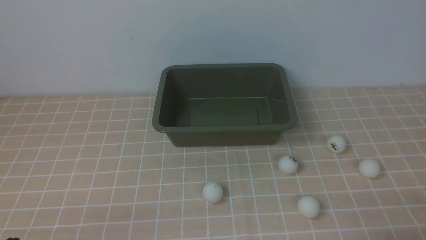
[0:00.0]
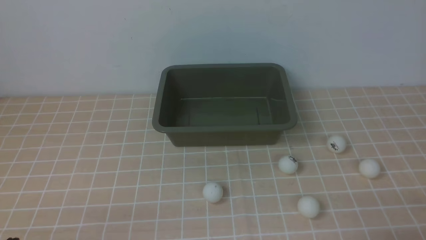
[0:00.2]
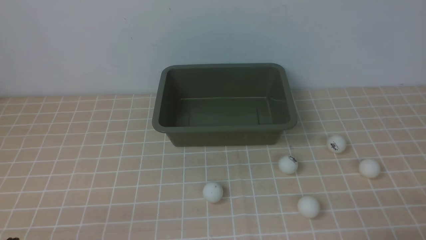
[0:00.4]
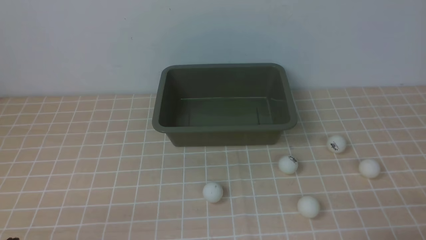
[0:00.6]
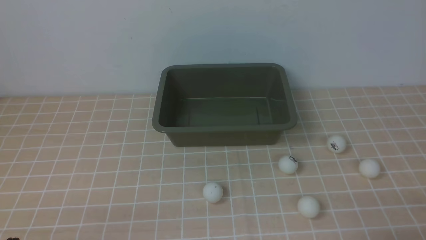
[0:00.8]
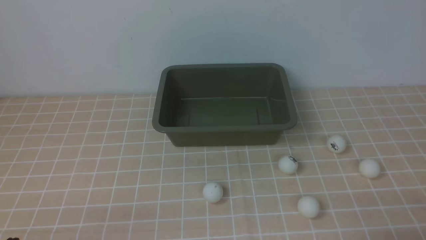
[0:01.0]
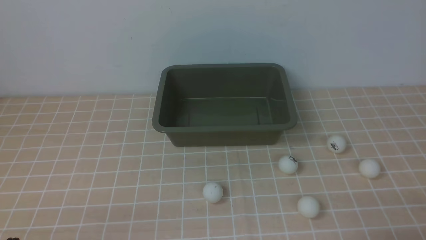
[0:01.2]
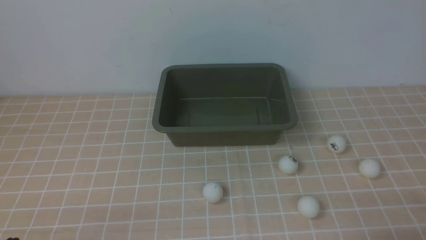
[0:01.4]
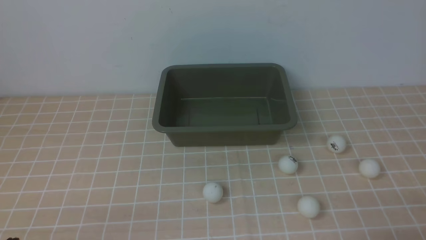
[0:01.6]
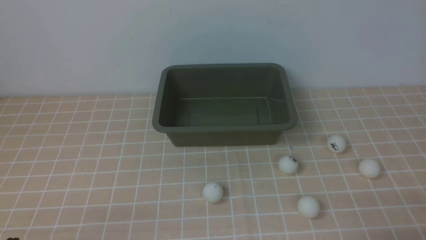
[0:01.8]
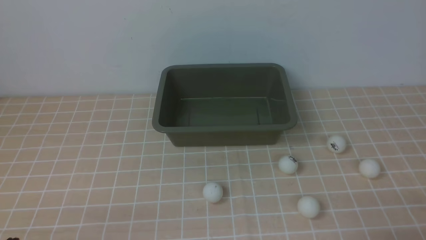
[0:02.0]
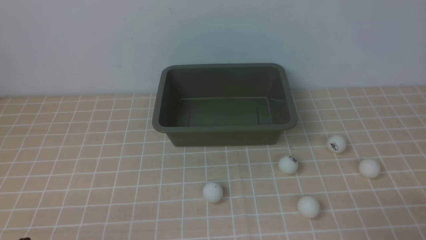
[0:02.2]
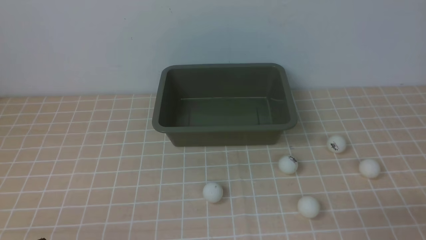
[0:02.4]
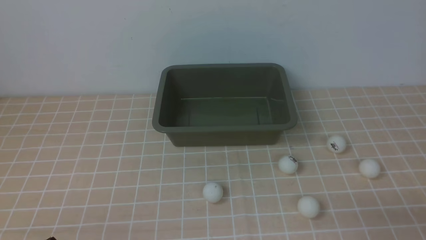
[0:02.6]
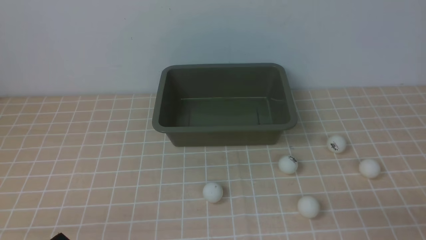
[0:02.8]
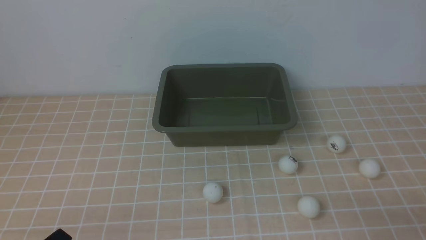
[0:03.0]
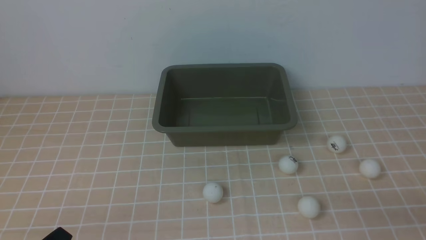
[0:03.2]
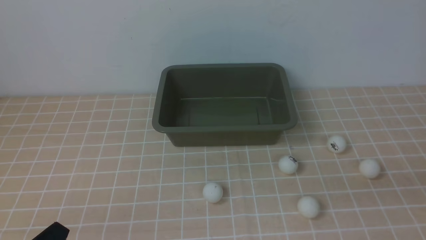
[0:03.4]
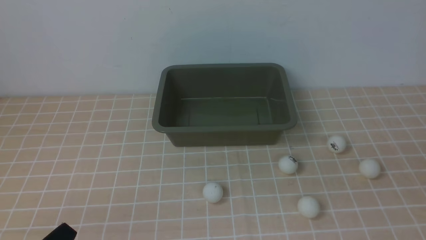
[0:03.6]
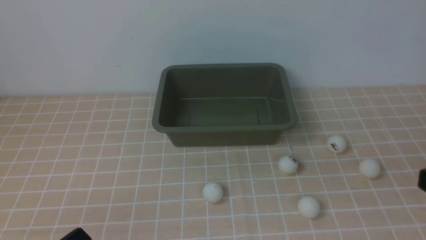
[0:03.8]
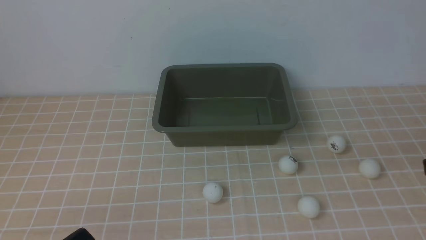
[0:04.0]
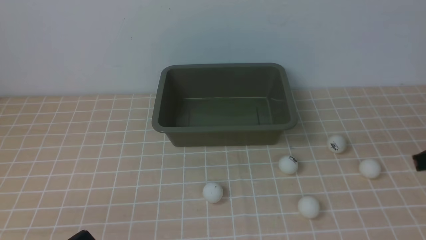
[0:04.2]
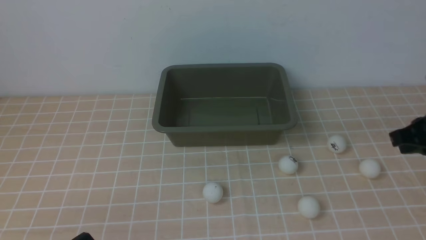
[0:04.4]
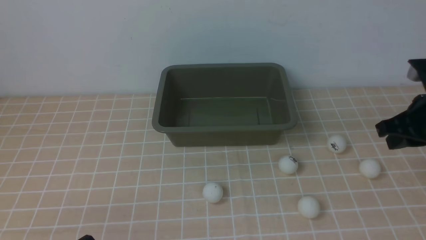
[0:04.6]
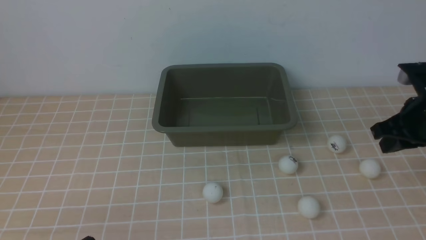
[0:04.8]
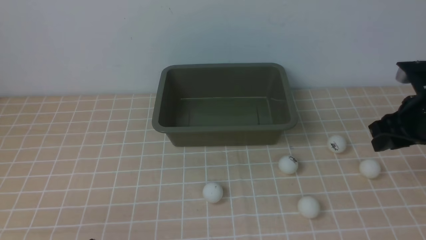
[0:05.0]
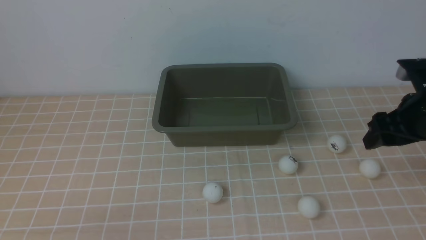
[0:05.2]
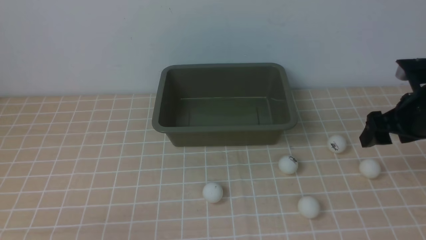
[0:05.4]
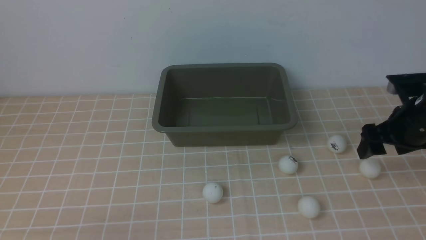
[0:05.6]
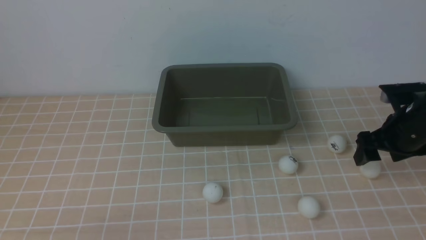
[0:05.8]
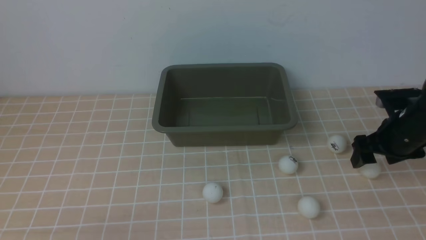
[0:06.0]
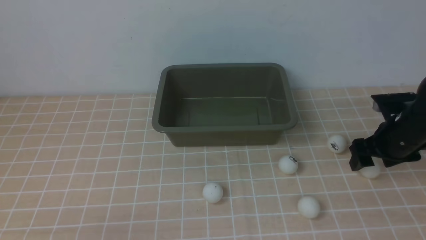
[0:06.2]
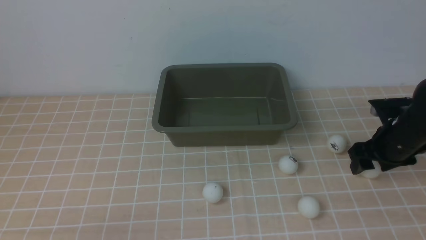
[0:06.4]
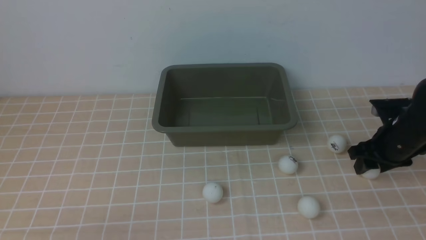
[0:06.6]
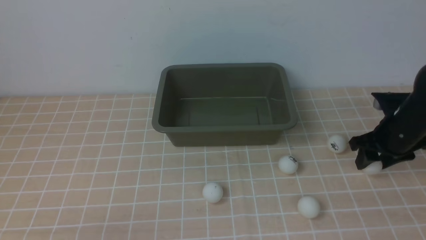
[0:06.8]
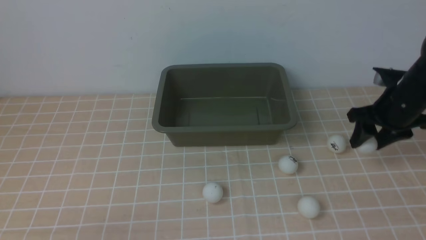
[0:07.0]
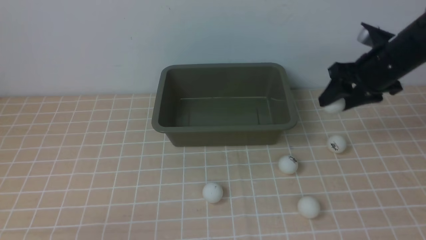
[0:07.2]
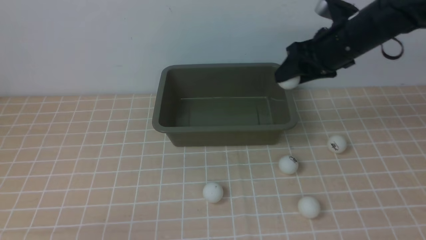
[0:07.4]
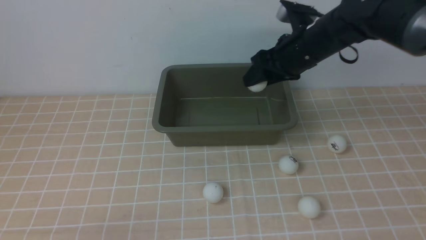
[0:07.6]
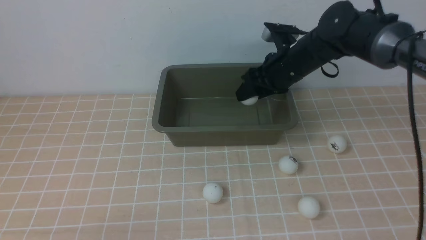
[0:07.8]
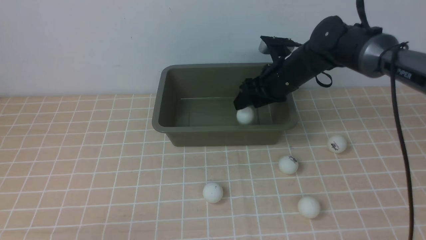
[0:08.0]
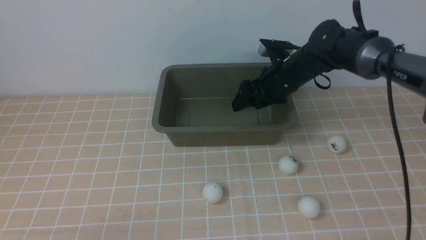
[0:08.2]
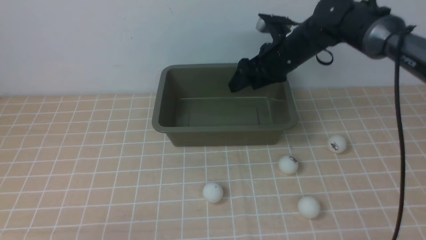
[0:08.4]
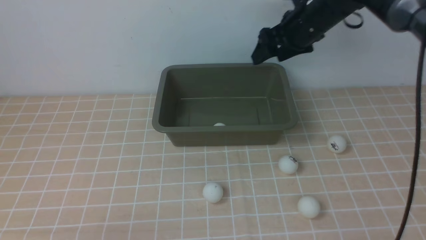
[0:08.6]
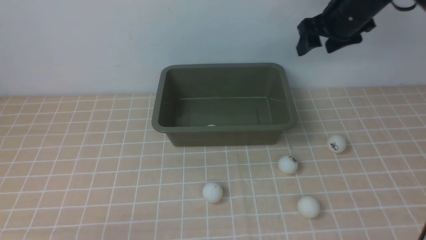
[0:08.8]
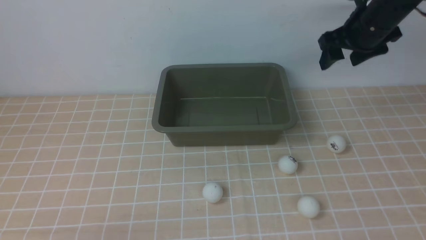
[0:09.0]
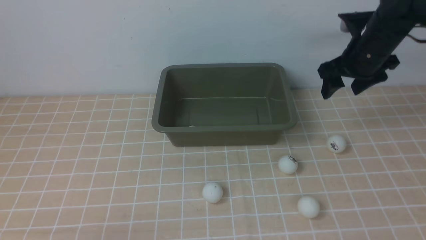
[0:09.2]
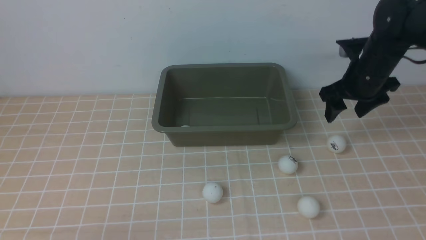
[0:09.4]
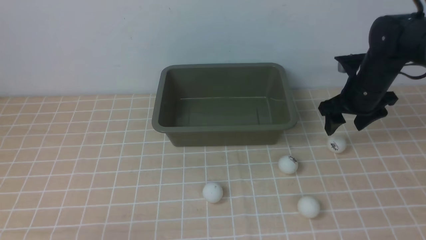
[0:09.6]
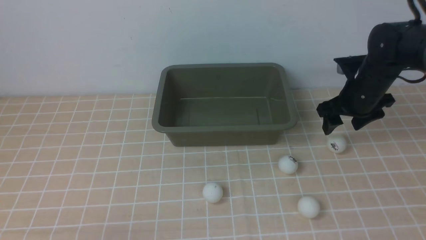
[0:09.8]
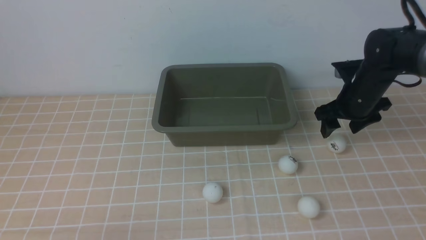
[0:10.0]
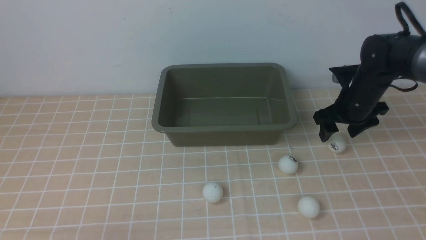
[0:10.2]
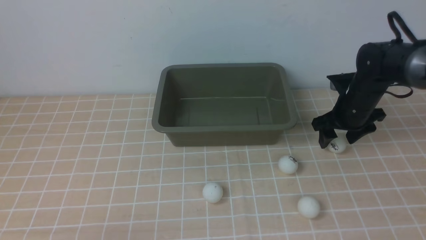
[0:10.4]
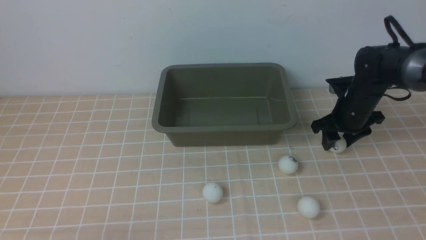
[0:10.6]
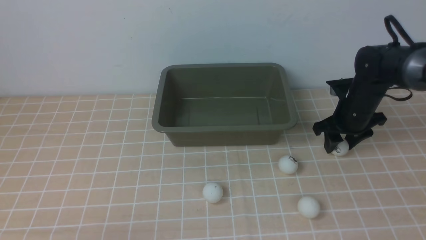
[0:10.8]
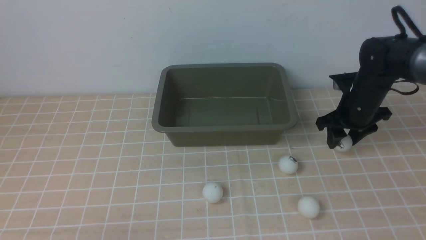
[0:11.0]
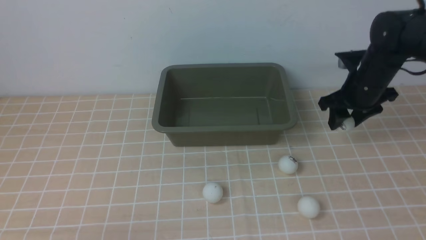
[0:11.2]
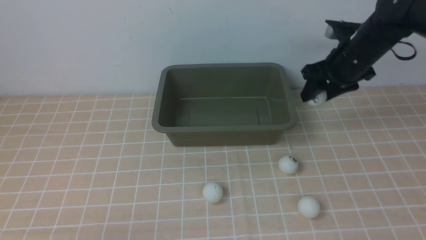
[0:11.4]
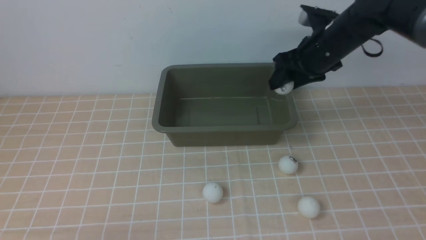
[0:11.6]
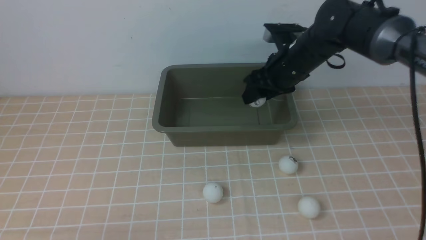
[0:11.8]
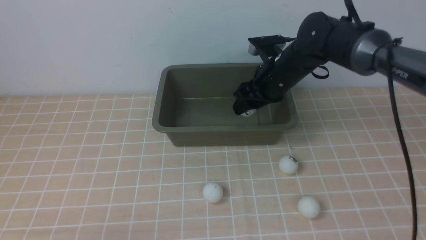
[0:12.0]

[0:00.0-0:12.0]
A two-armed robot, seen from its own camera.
Step, 0:00.0 to 0:06.6: use the right arm to clamp the table tennis ball closest to it.
Step, 0:07.0 to 0:08.2: use the right arm to put the table tennis ball into the box.
Step, 0:08.4 to 0:11.0: use the right arm to clamp the table tennis ball closest to it.
0:00.0 to 0:01.6: The two grippers keep their place.
0:03.0 to 0:04.4: The right gripper shifts approximately 20 cm forward.
0:04.4 to 0:06.0: The right gripper goes roughly 15 cm downward and forward, and opens.
0:06.0 to 0:07.6: The right gripper travels to the left, upward and forward by roughly 20 cm, and closes up.
0:07.6 to 0:09.0: The right gripper is displaced to the right by about 10 cm.
0:09.0 to 0:10.4: The right gripper is displaced downward by approximately 15 cm.
0:10.4 to 0:12.0: The right gripper moves to the left and upward, approximately 15 cm.

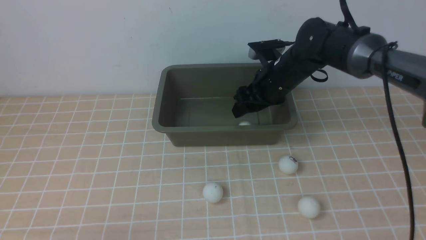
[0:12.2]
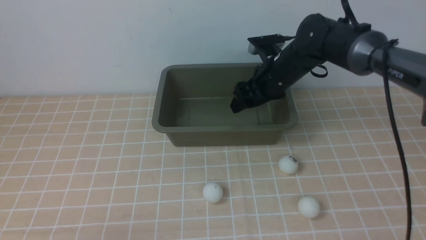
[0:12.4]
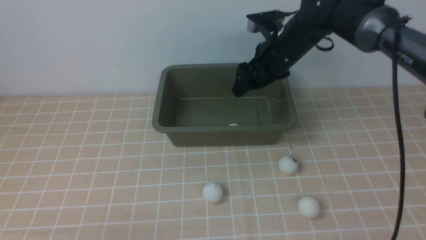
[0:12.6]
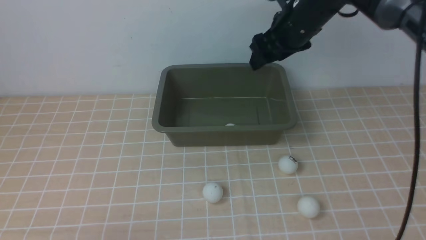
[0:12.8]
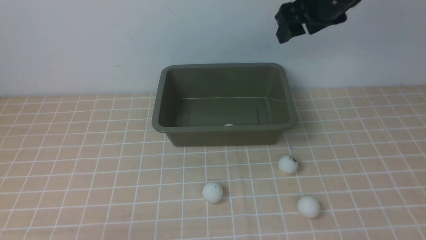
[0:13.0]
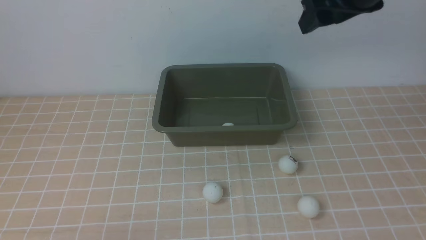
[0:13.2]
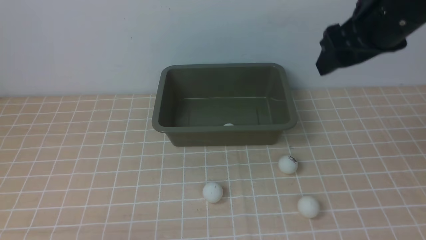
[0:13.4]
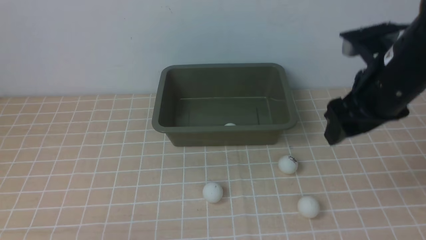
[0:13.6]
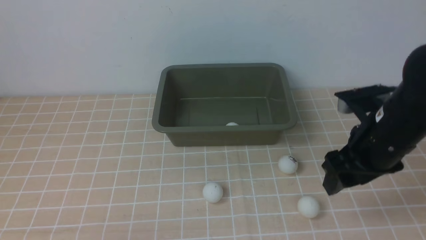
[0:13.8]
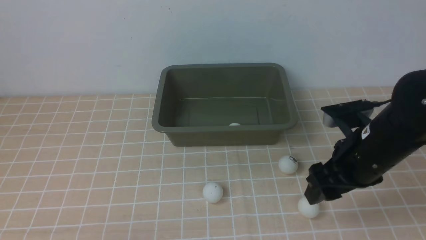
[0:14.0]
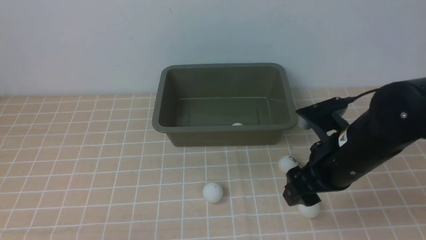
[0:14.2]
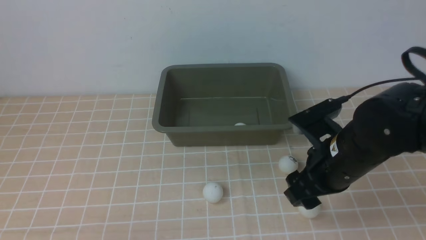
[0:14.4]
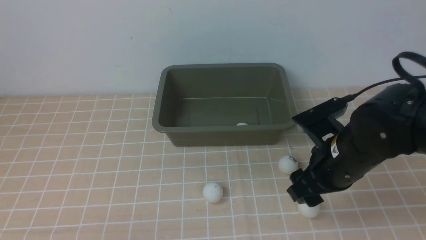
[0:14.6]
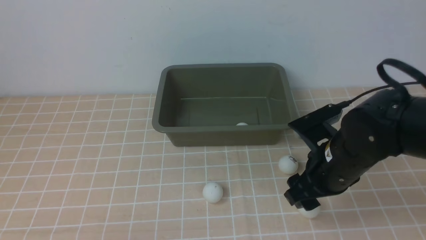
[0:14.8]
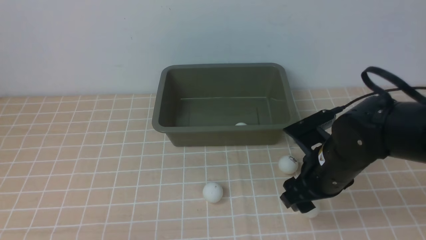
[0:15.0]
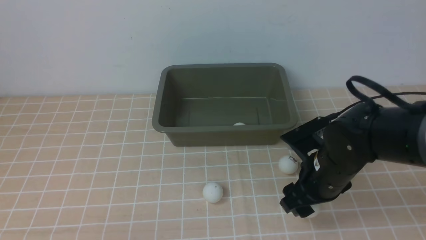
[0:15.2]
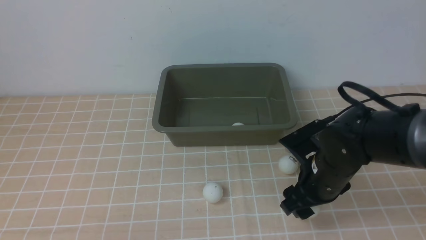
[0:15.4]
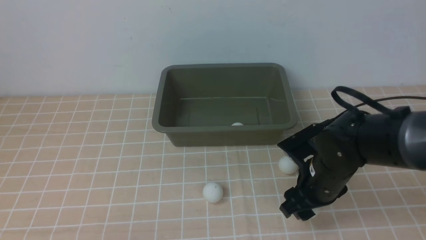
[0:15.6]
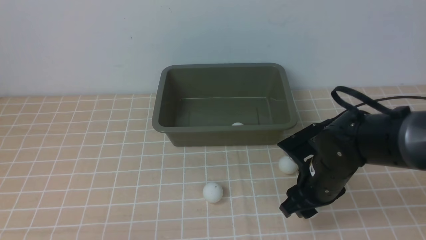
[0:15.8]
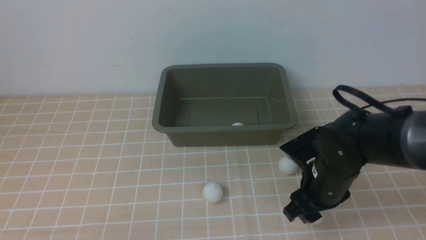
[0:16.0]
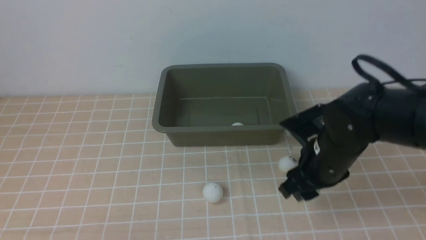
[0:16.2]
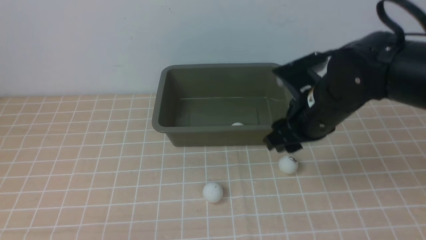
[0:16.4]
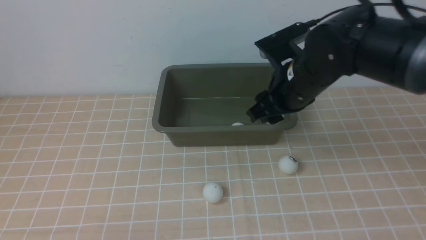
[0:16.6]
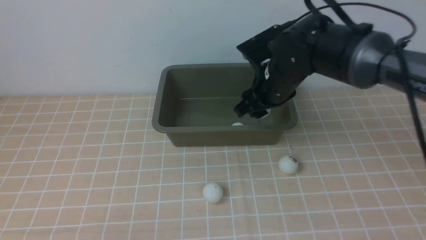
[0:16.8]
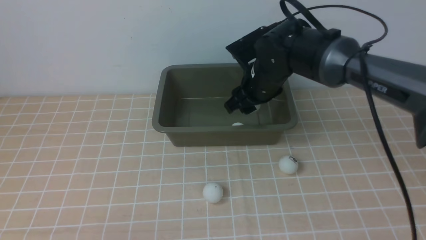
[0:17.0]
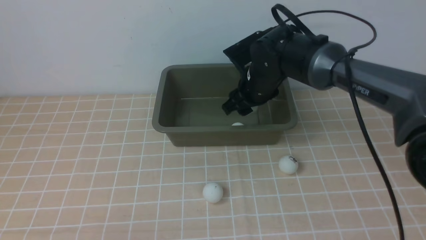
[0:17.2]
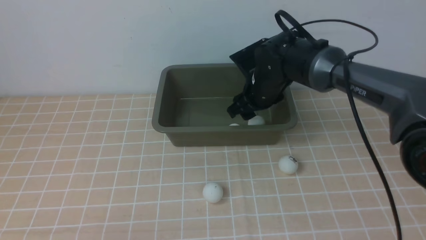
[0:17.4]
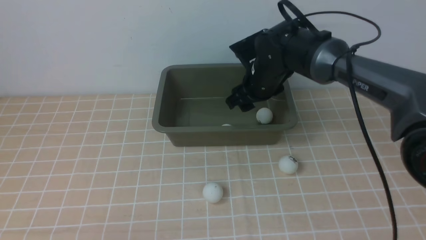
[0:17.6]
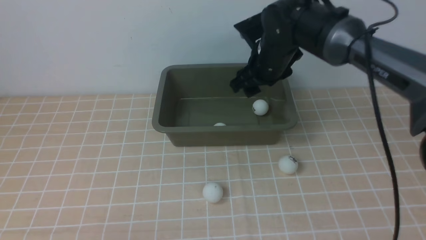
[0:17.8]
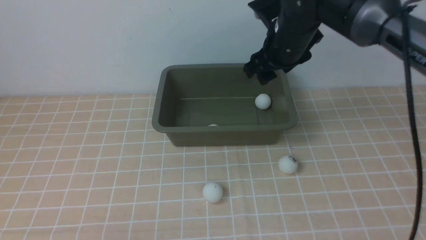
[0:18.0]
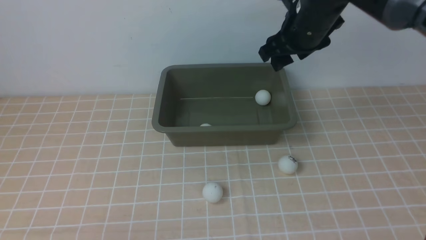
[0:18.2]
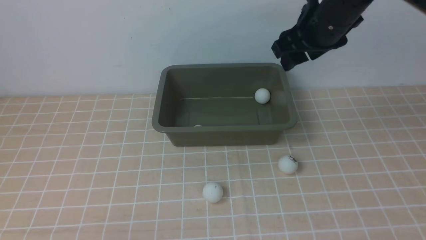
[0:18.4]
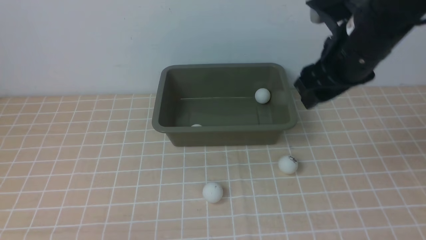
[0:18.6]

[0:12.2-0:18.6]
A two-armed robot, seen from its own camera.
Step, 0:12.8 to 0:16.4: use the right arm to clamp the table tennis ball closest to it.
Step, 0:16.6 to 0:18.0: use the right arm to put the table tennis ball into the box.
0:12.2 to 0:13.8: The right gripper is displaced backward and to the right by roughly 20 cm.
0:13.8 to 0:15.4: The right gripper goes roughly 10 cm downward.
0:15.4 to 0:17.0: The right gripper travels forward, to the left and upward by roughly 15 cm.
0:17.0 to 0:18.6: The right gripper heads upward, backward and to the right, covering some 15 cm.
